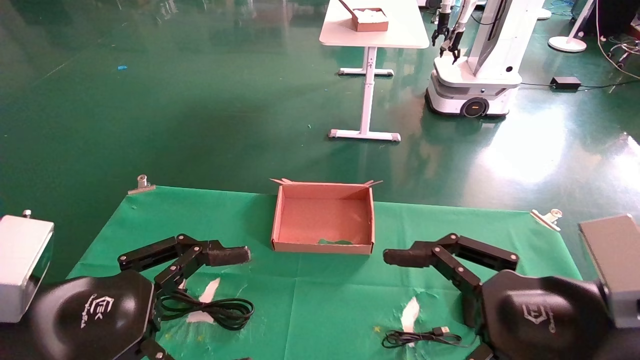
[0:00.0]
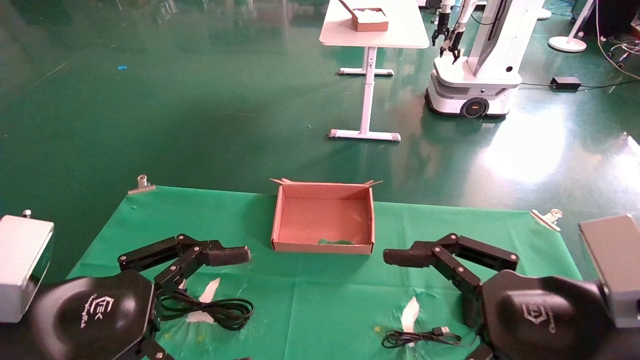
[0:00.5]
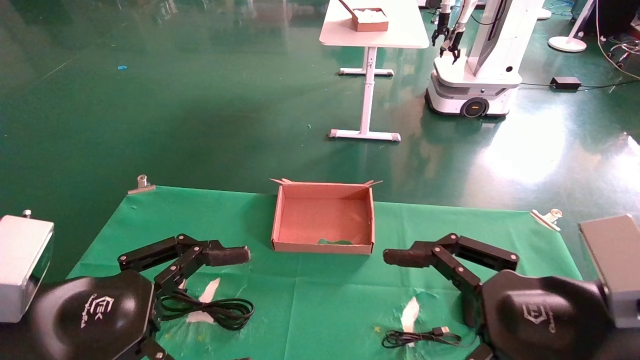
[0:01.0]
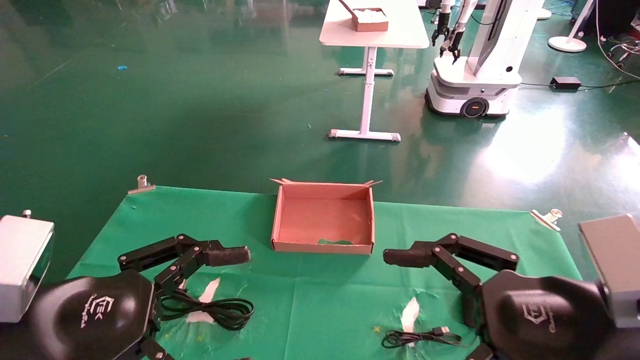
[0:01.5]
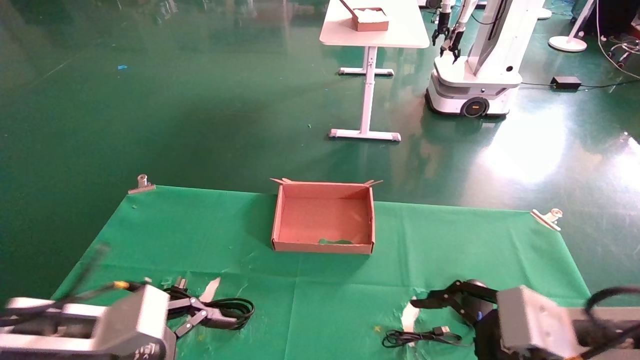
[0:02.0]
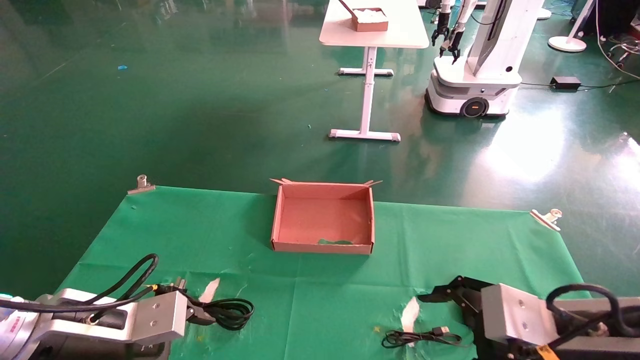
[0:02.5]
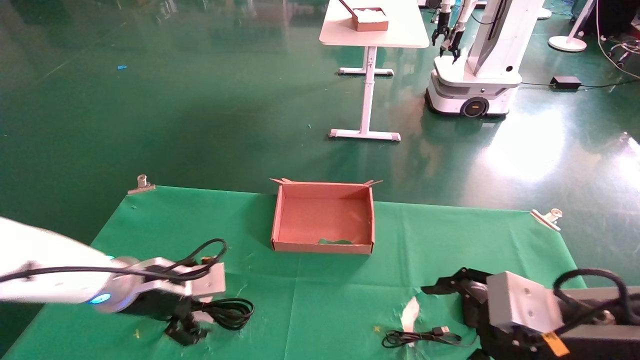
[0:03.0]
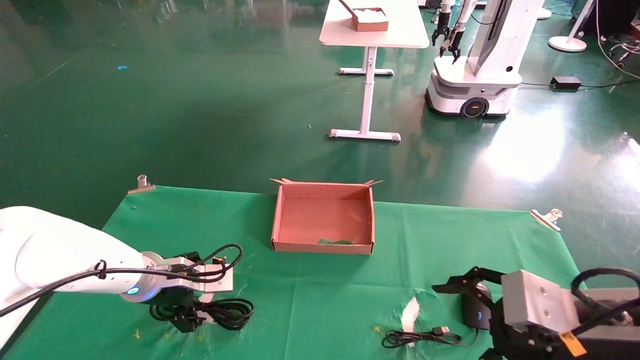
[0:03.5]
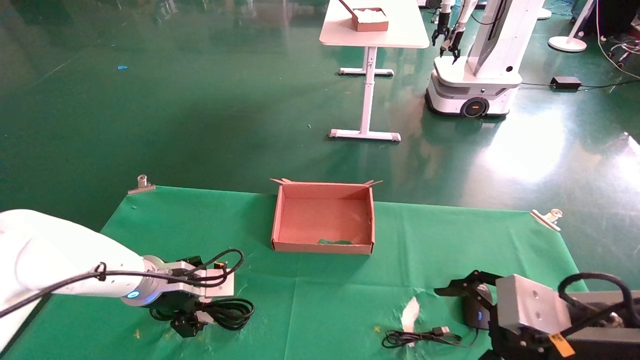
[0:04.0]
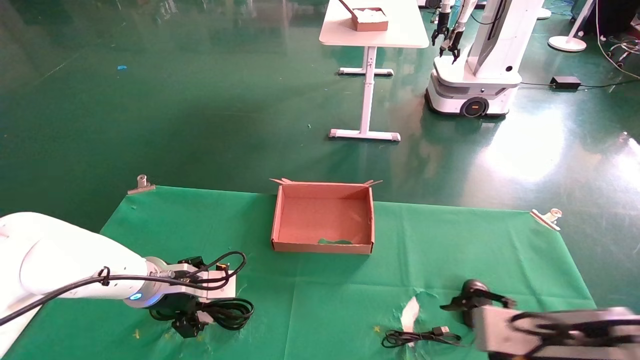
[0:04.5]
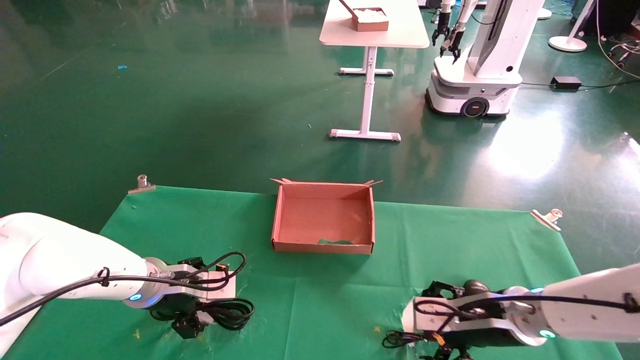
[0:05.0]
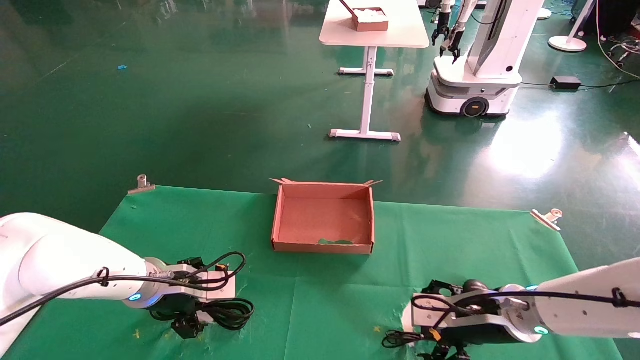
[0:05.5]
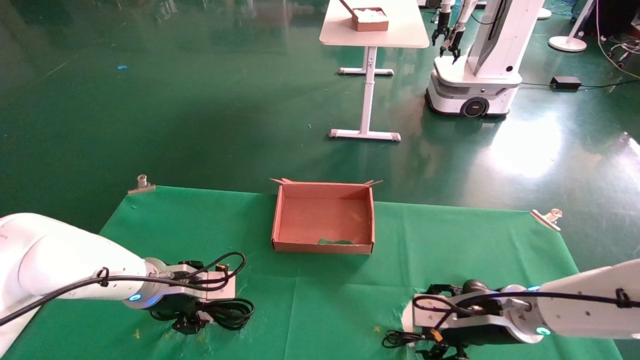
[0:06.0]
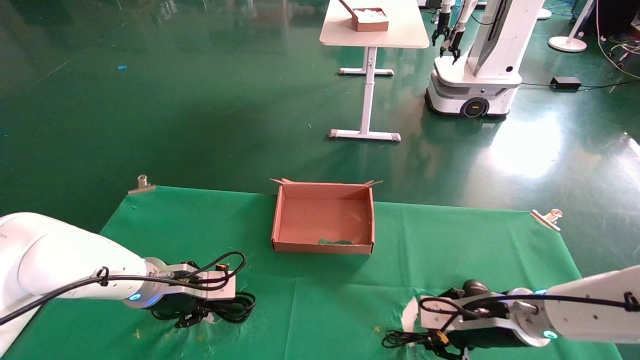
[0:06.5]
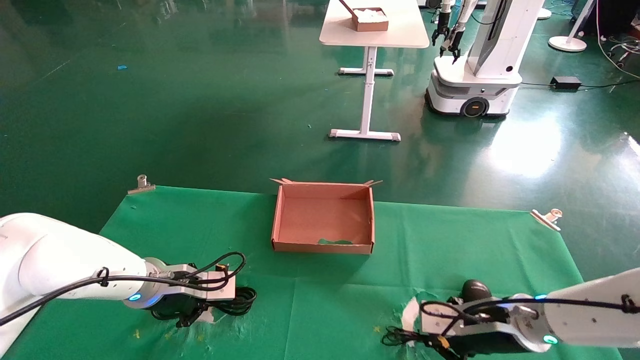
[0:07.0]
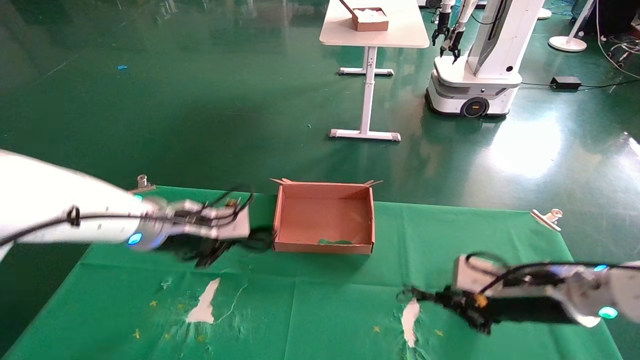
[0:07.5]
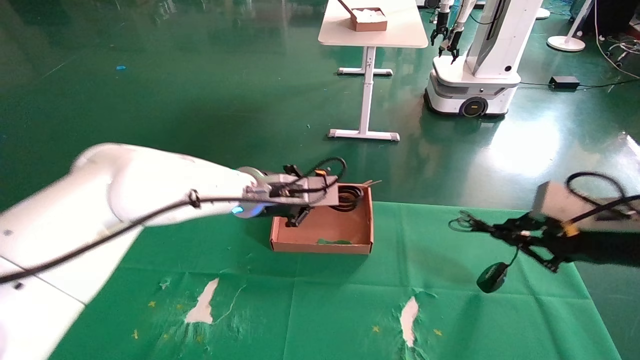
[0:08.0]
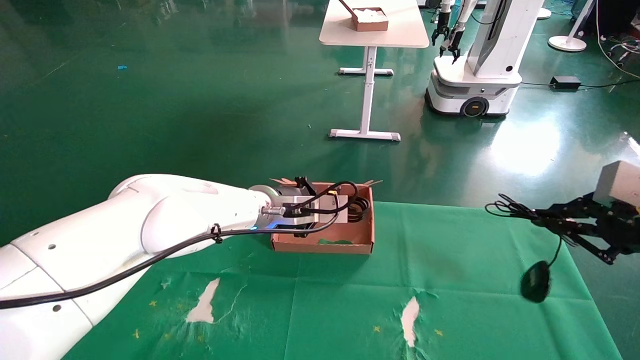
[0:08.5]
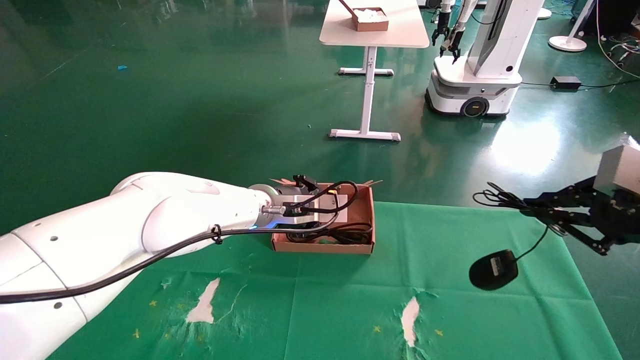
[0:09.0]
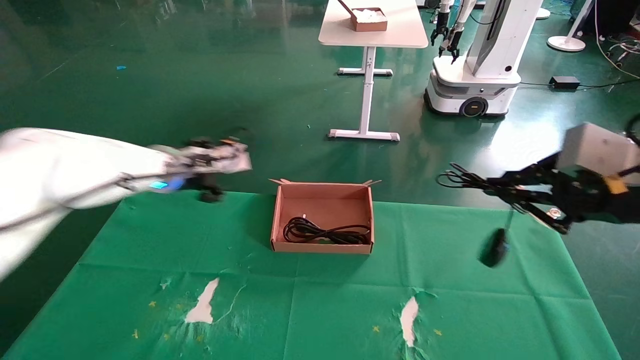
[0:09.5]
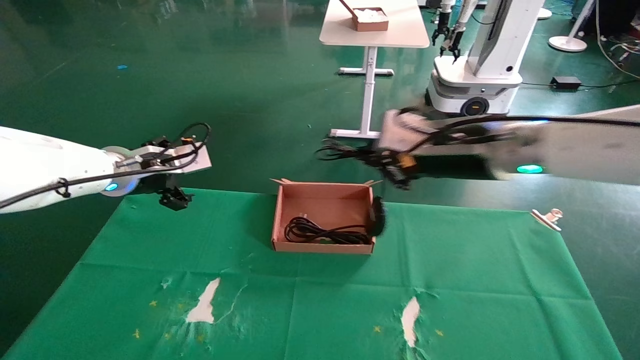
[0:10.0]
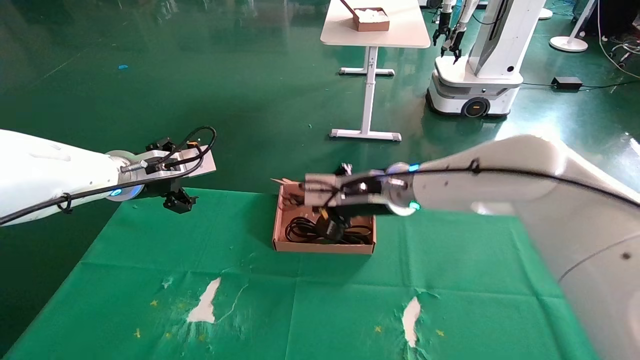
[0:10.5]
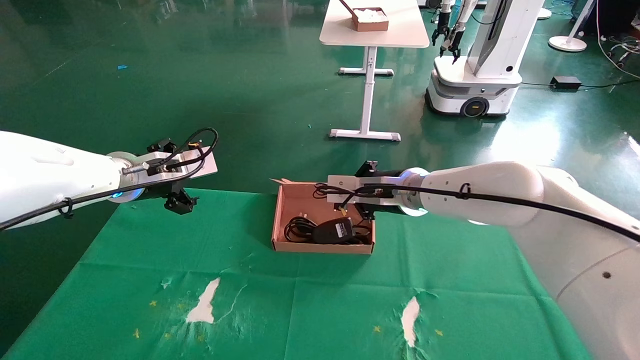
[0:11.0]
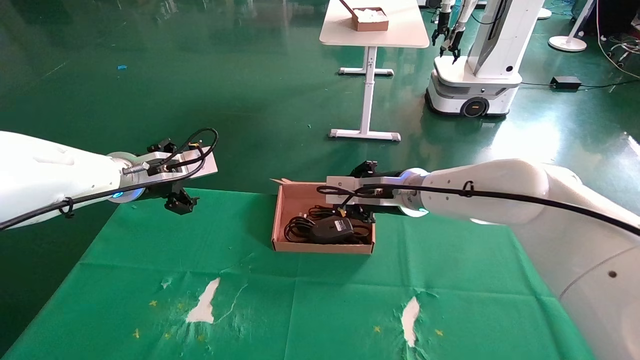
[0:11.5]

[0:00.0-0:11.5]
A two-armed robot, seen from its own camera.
Step, 0:02.0 to 0:05.0: Grab and lift both the mouse and power cord from the accessory packaging area at the same time.
Step, 0:05.5 to 0:11.0: Place the mouse and power cord into the box.
0:00.0 to 0:02.0: The right gripper shifts by about 5 cm; the left gripper goes some 5 cm forward and downward.
0:02.0 to 0:04.0: The left gripper travels forward by about 15 cm.
0:04.0 to 0:06.0: The right gripper travels forward and downward by some 15 cm.
0:06.0 to 0:07.5: The right gripper travels upward and to the right by about 10 cm, and closes its fingers, while the left gripper heads upward, covering about 10 cm, and closes.
0:07.5 to 0:09.5: The left gripper moves forward and upward, about 10 cm, travels to the right and back again, roughly 10 cm each way, and opens up. Meanwhile the right gripper heads upward and backward, covering about 15 cm.
0:09.5 to 0:11.5: The right gripper travels to the left and forward by some 30 cm. Meanwhile the left gripper shifts by roughly 5 cm.

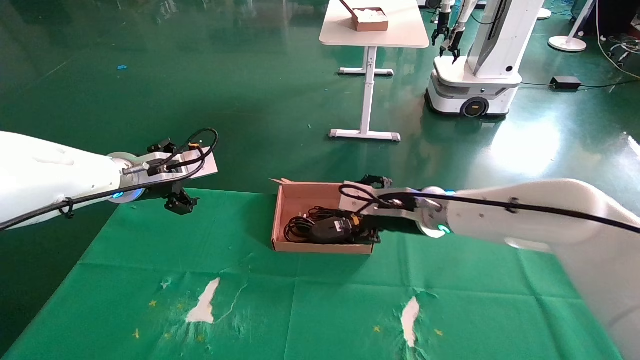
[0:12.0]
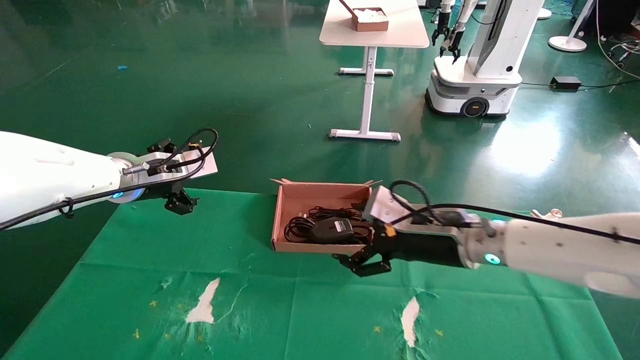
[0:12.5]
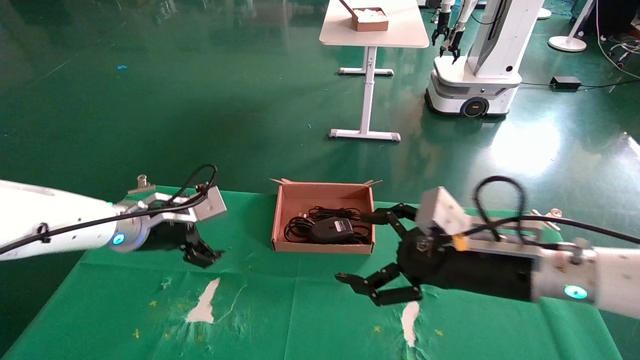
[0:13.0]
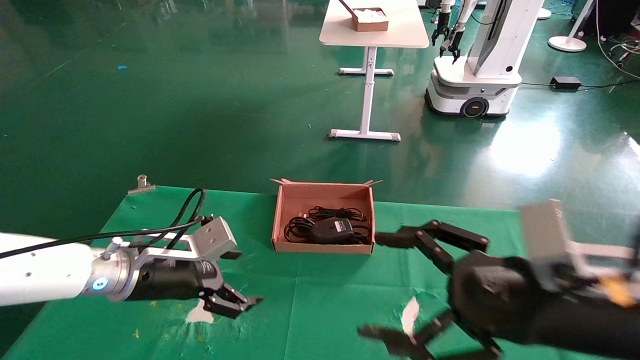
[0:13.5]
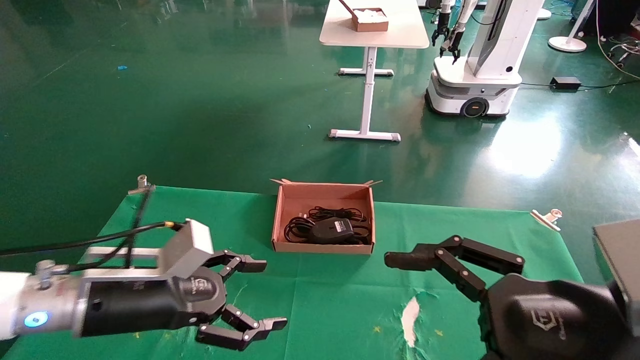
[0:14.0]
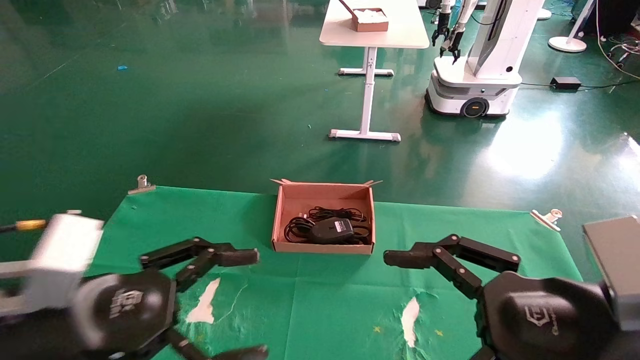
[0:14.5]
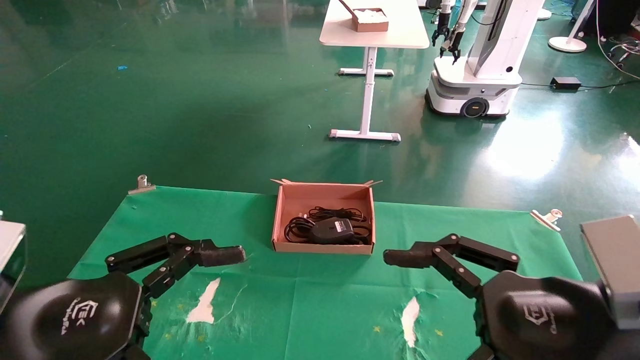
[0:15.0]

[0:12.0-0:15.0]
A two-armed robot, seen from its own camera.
0:12.0 to 0:13.5: The right gripper heads backward and to the right, covering roughly 25 cm, and opens. The left gripper travels downward and backward by roughly 15 cm.
0:13.5 to 0:15.0: The left gripper heads backward, covering roughly 20 cm.

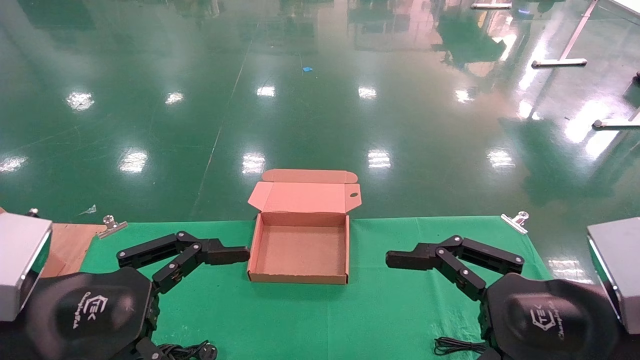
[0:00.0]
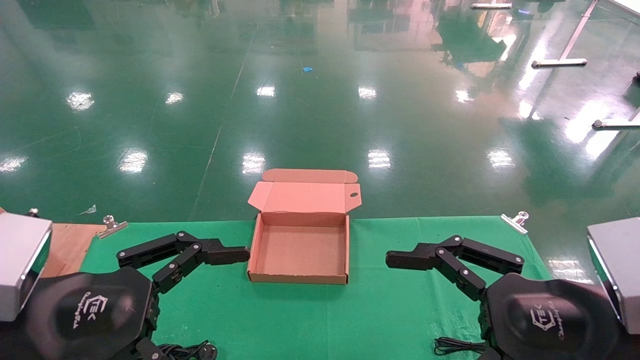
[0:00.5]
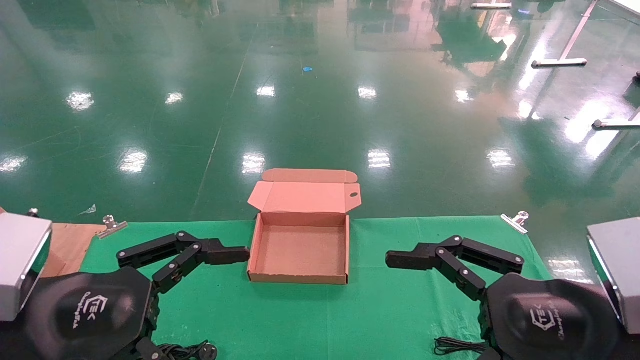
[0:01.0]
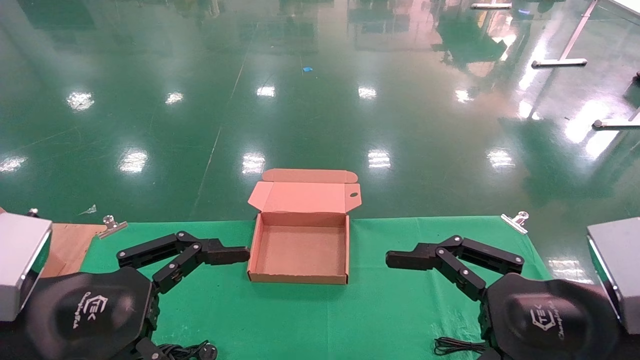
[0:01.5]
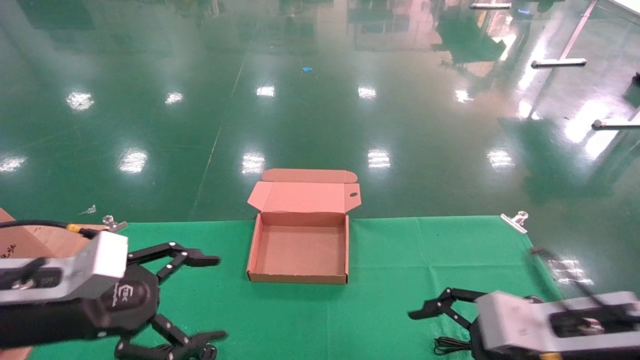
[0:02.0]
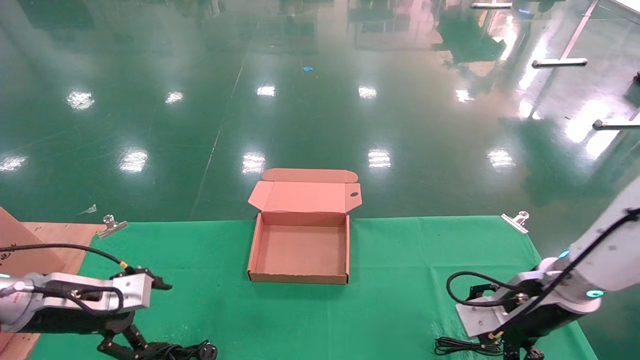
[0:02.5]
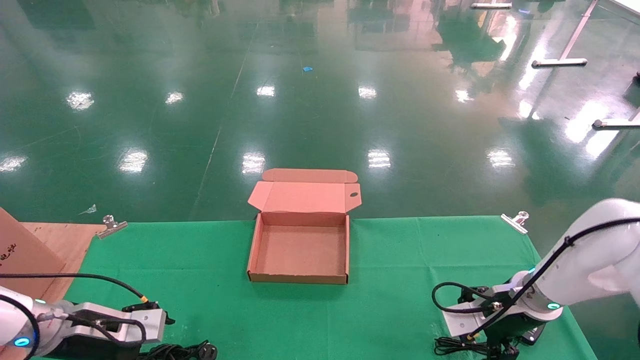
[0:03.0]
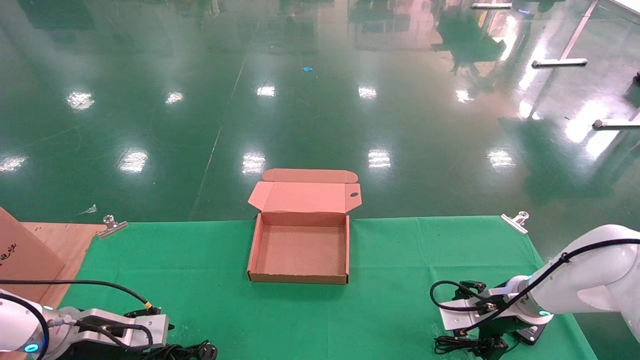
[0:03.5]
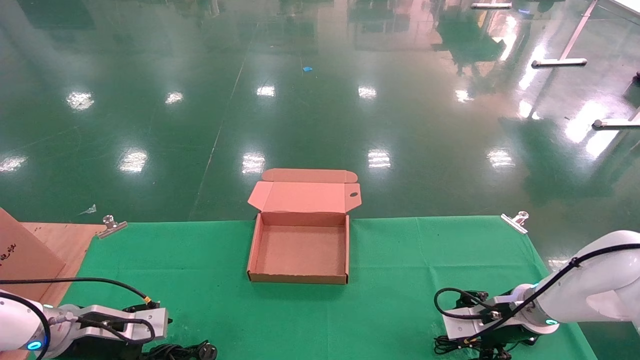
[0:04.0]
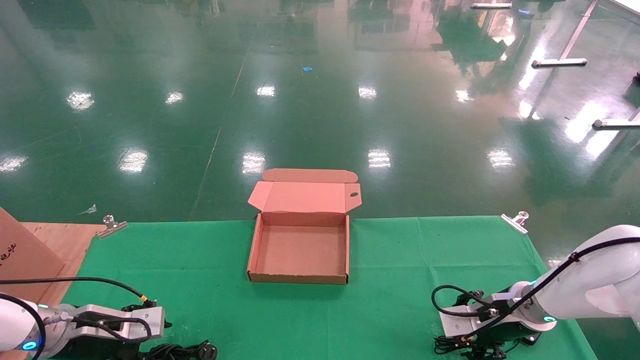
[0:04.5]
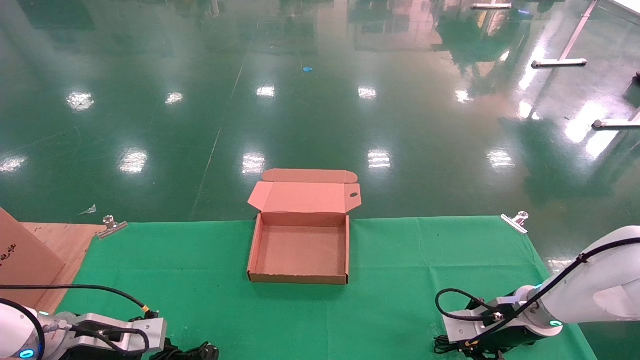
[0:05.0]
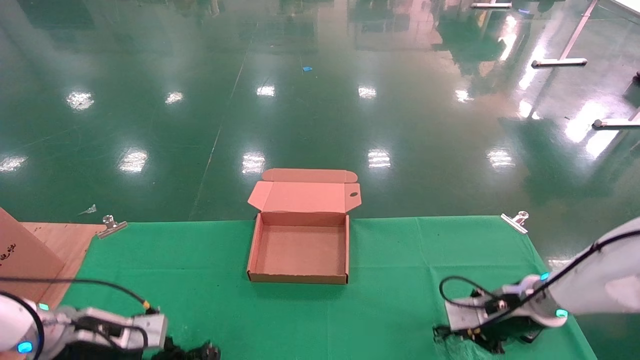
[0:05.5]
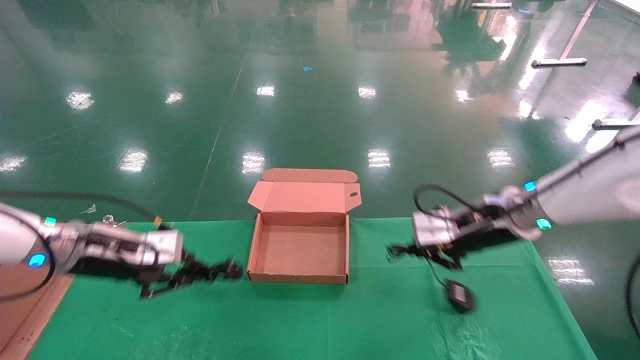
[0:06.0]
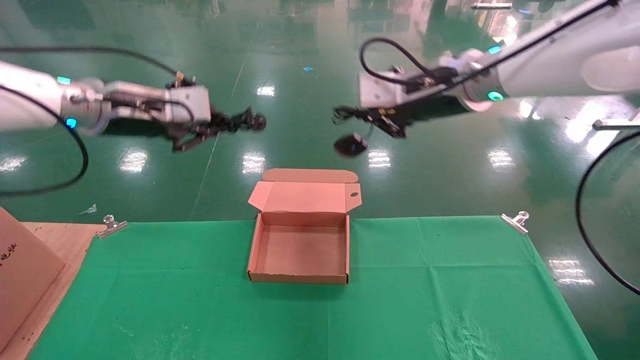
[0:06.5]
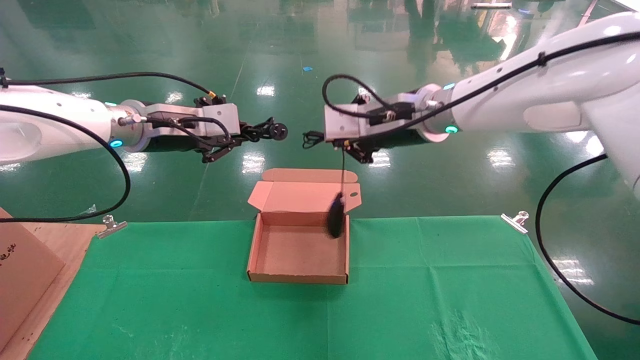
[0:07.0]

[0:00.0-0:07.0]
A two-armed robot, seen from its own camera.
Step, 0:02.5 to 0:05.5: Grab and lift both the mouse and power cord from the accessory packaging area at the same time.
0:00.0 to 0:02.0: The left gripper is displaced forward and to the left by some 10 cm. The right gripper goes some 10 cm forward and downward.
0:02.0 to 0:03.5: The right gripper moves forward and downward, some 20 cm, while the left gripper heads downward and forward, covering roughly 15 cm.
0:03.5 to 0:05.0: The right gripper closes up; the left gripper closes its fingers.
0:05.0 to 0:07.0: The right gripper goes some 35 cm upward and to the left; the left gripper is displaced upward and to the right by roughly 30 cm.
